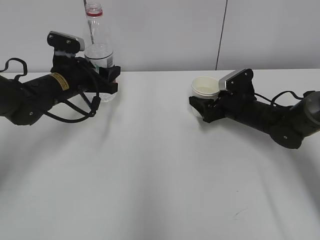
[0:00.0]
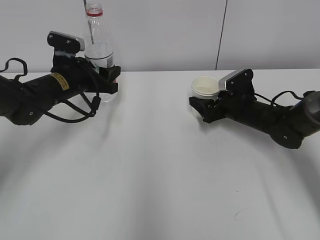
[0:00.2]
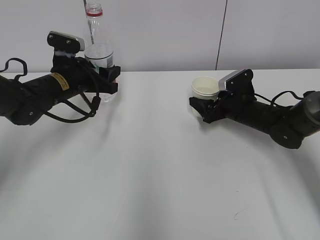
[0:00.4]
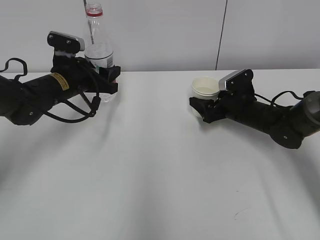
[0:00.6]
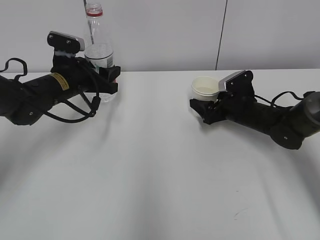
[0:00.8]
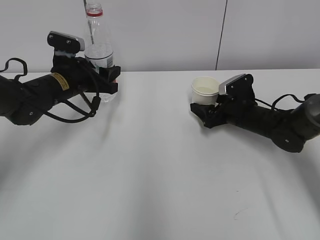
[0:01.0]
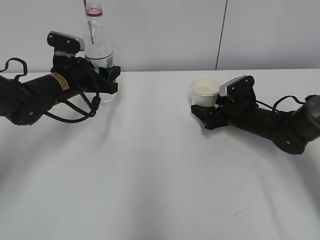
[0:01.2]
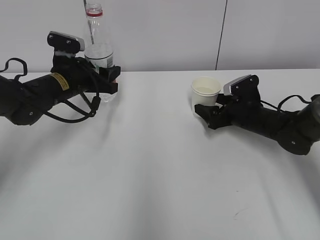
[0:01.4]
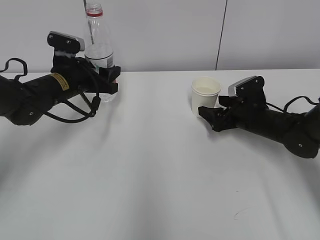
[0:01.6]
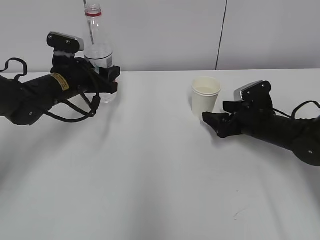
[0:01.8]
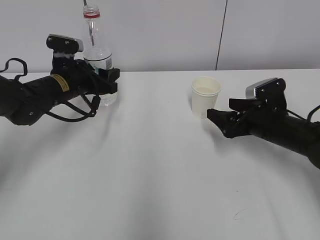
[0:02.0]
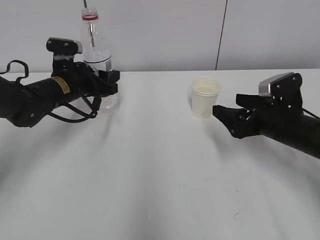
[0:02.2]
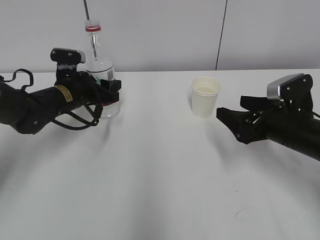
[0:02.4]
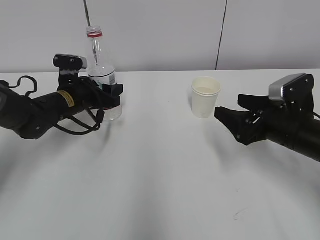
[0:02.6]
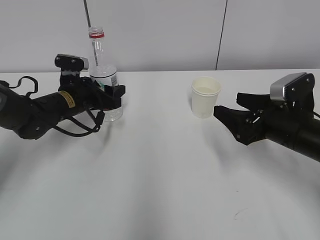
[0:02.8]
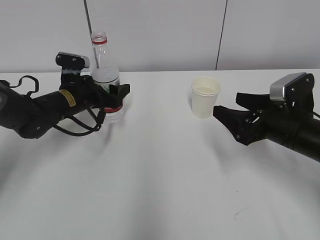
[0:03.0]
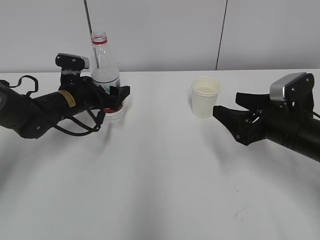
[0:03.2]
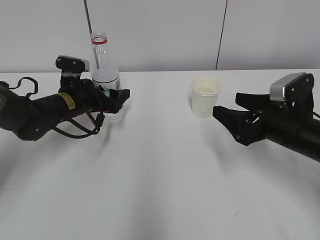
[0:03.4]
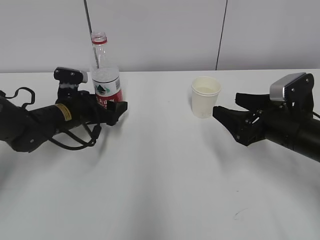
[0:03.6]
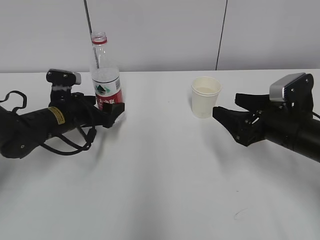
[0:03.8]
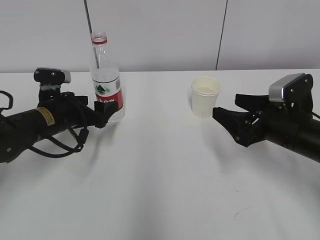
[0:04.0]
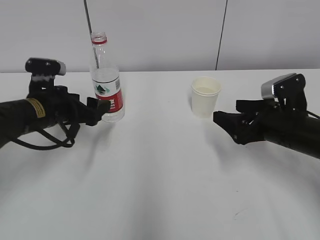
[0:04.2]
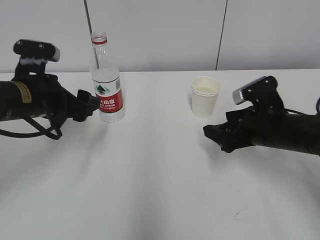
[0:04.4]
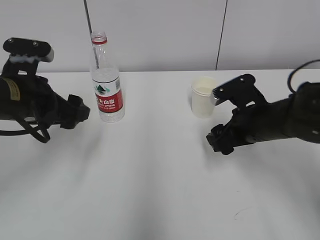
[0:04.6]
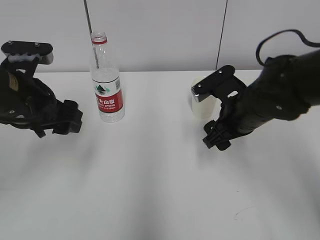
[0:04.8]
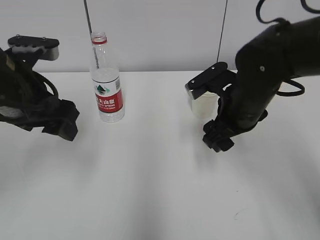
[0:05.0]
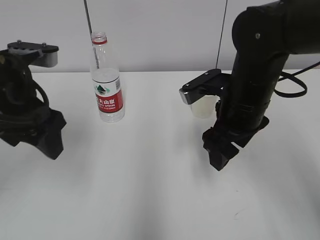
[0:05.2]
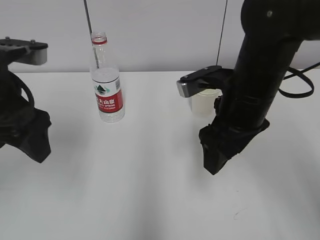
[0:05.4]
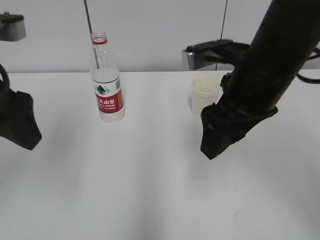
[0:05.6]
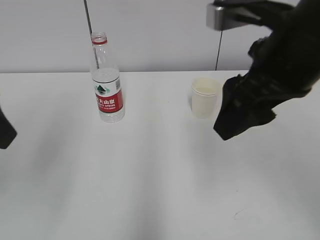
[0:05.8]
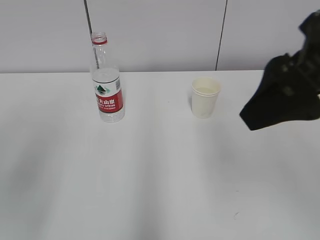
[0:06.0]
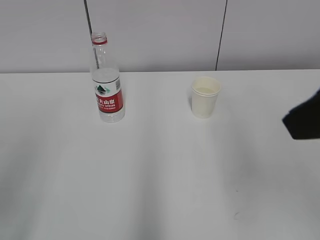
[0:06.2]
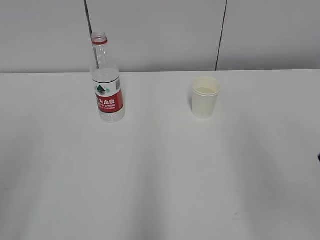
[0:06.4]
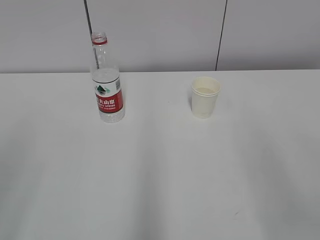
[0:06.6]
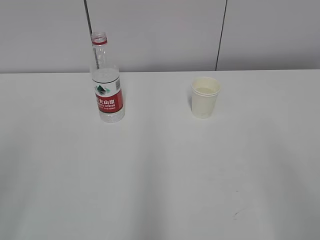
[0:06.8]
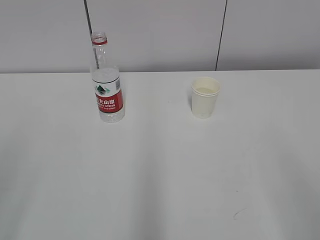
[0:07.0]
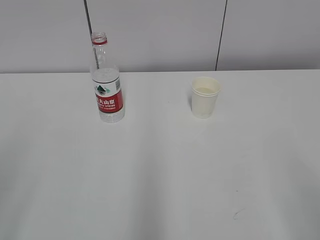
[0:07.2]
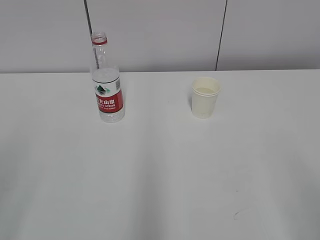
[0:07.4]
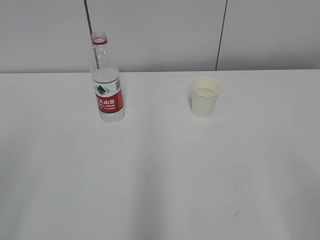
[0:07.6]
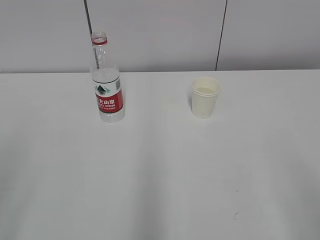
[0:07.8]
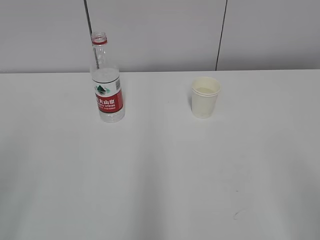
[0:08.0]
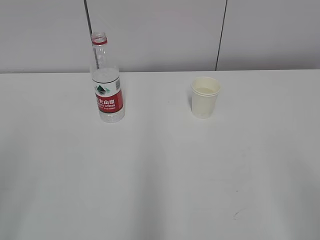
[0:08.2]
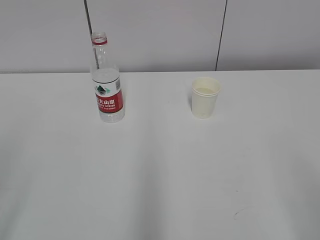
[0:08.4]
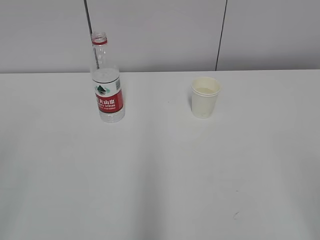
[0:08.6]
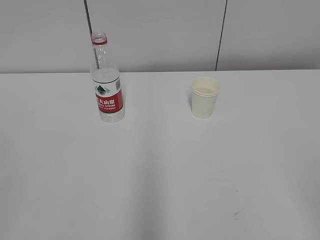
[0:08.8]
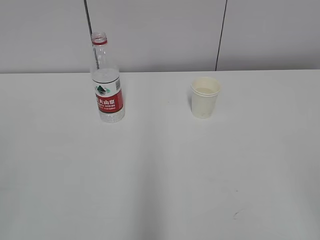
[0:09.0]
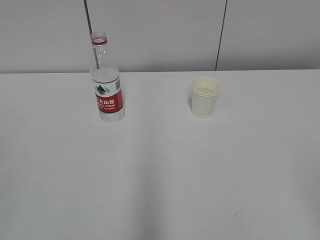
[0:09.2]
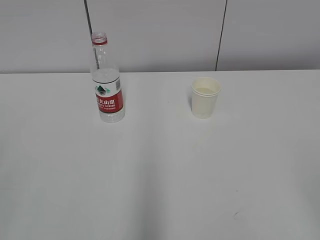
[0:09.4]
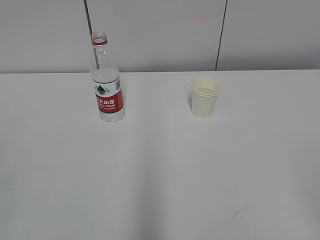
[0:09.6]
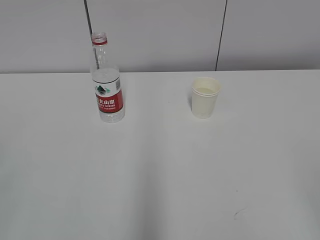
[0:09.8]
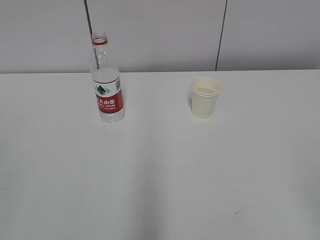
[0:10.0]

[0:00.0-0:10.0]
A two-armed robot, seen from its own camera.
0:00.0 to 0:01.4: The grippers move only a little.
0:01.4 to 0:02.8: The right gripper shifts some 15 cm backward and upward.
0:02.8 to 0:04.2: The left gripper shifts roughly 10 cm backward, and opens up.
0:04.2 to 0:05.8: The left gripper is displaced upward and backward by roughly 25 cm. Meanwhile the right gripper heads upward and to the left, covering about 20 cm.
0:05.8 to 0:07.2: The left gripper shifts some 15 cm backward and to the left, while the right gripper travels backward and to the right by about 25 cm.

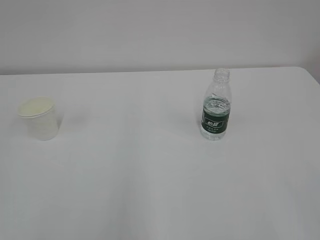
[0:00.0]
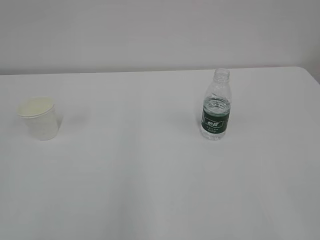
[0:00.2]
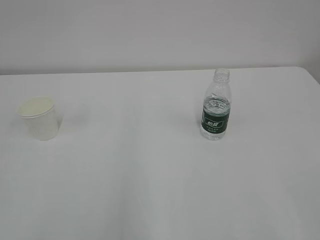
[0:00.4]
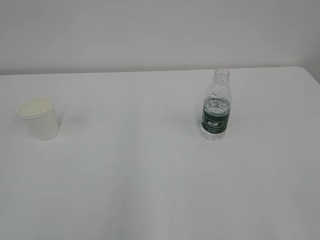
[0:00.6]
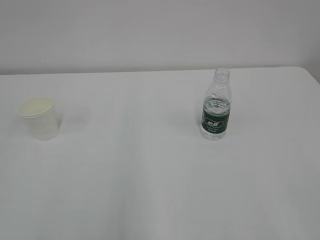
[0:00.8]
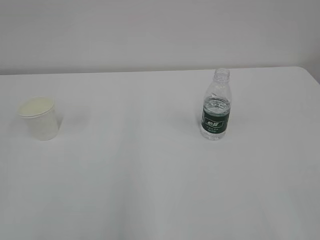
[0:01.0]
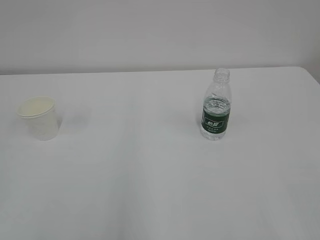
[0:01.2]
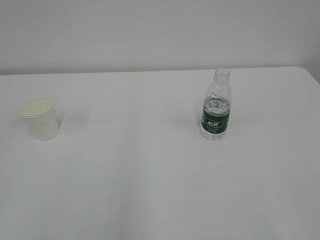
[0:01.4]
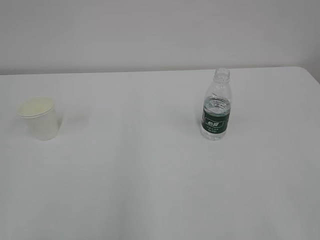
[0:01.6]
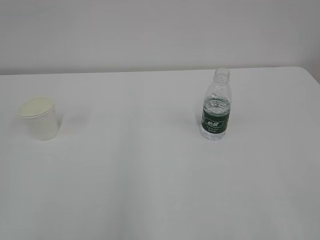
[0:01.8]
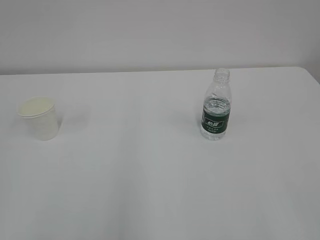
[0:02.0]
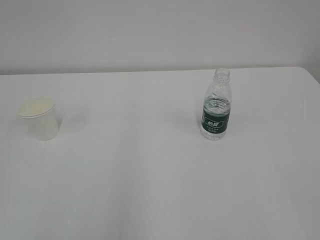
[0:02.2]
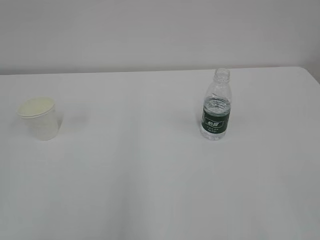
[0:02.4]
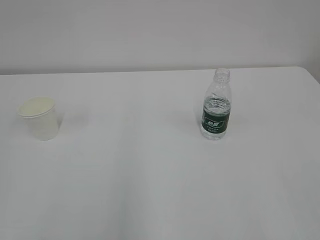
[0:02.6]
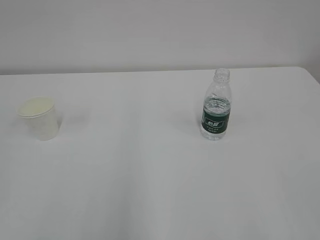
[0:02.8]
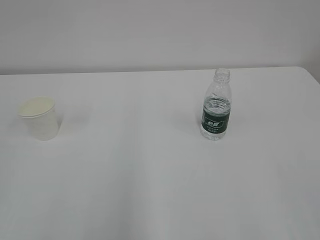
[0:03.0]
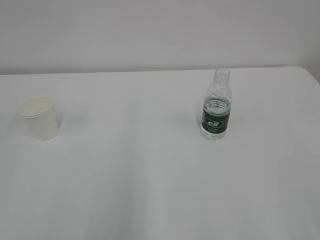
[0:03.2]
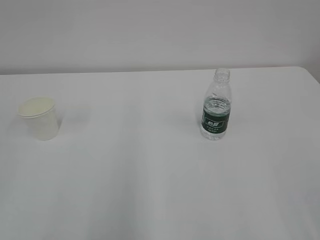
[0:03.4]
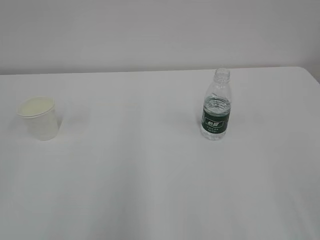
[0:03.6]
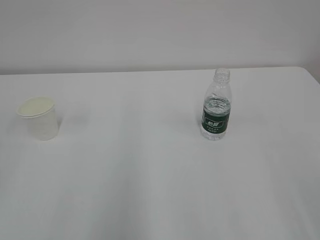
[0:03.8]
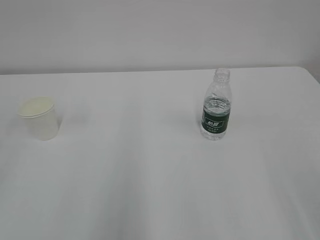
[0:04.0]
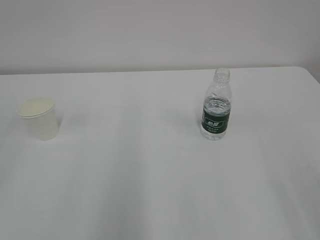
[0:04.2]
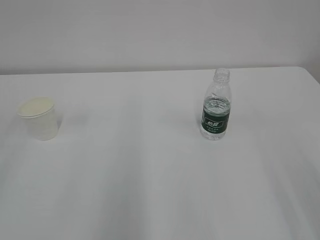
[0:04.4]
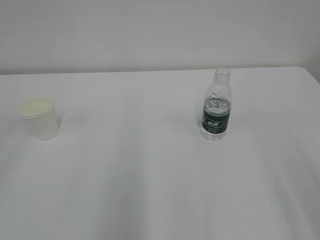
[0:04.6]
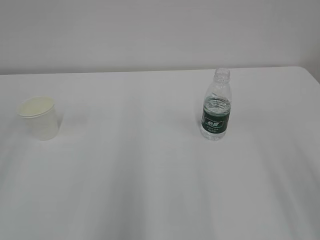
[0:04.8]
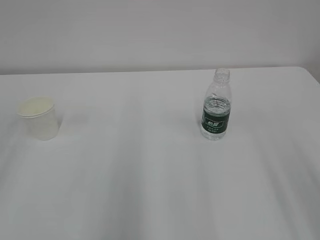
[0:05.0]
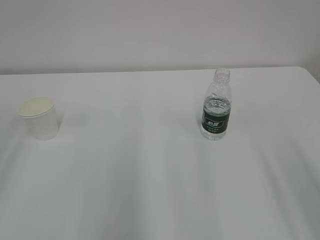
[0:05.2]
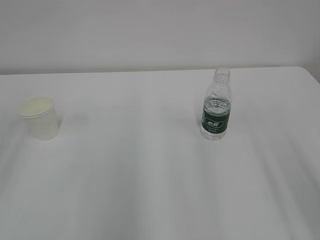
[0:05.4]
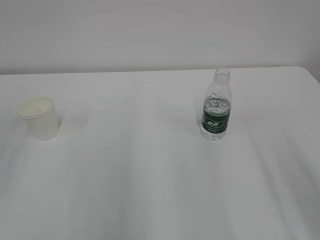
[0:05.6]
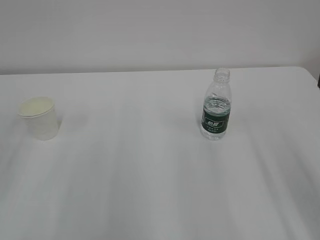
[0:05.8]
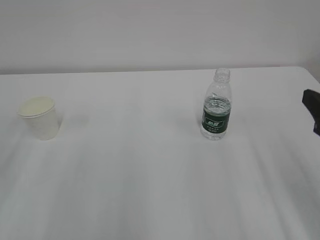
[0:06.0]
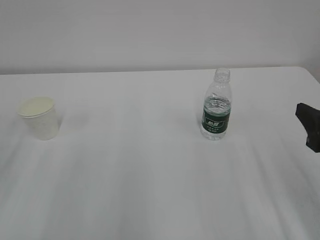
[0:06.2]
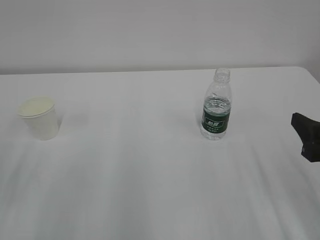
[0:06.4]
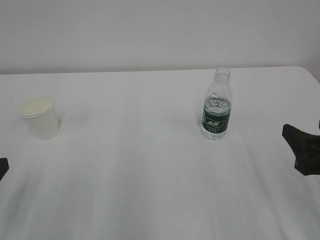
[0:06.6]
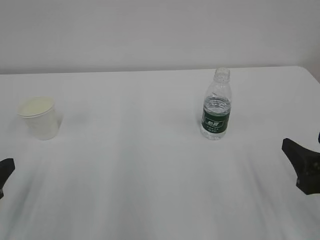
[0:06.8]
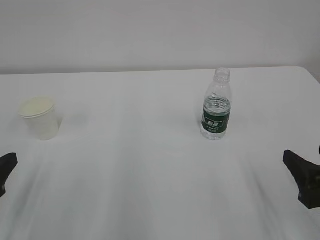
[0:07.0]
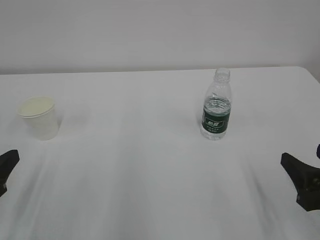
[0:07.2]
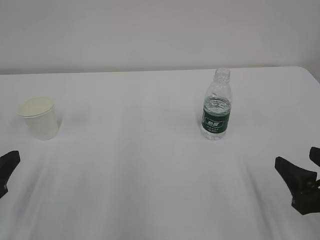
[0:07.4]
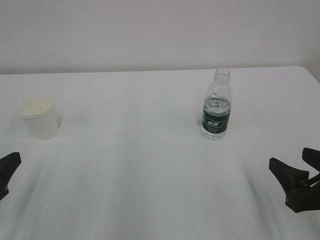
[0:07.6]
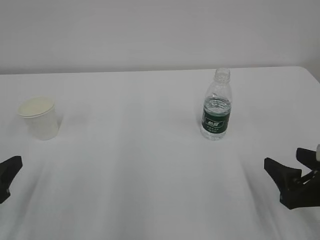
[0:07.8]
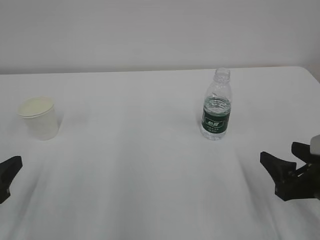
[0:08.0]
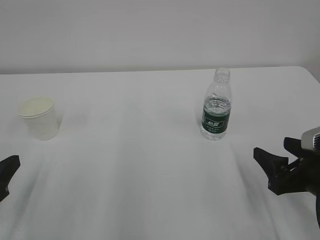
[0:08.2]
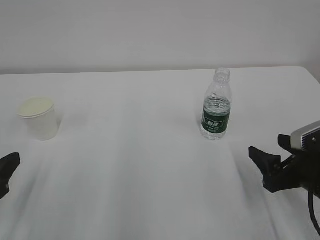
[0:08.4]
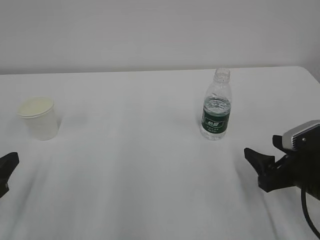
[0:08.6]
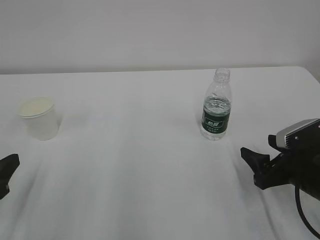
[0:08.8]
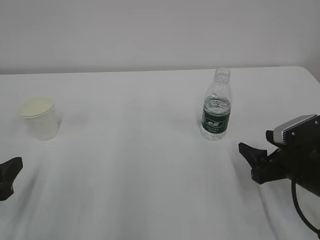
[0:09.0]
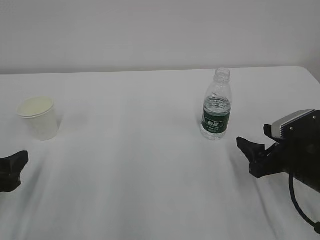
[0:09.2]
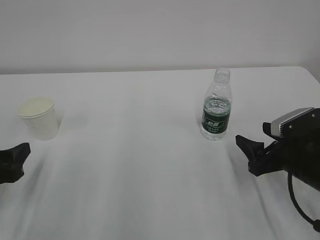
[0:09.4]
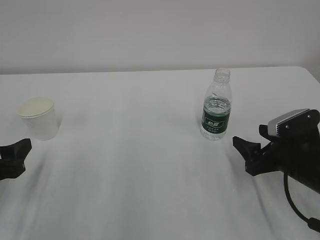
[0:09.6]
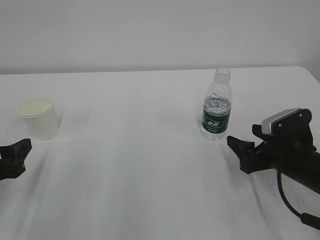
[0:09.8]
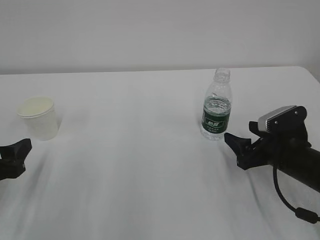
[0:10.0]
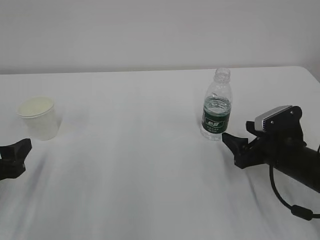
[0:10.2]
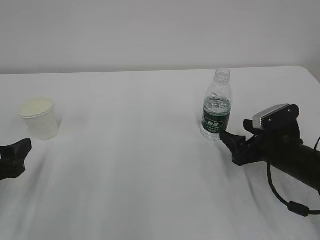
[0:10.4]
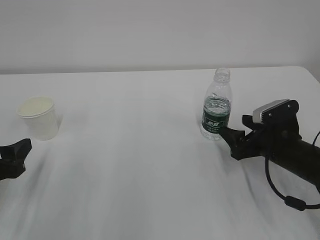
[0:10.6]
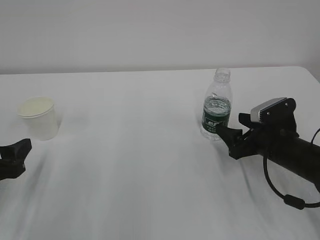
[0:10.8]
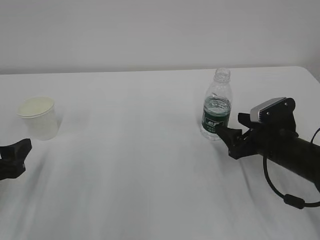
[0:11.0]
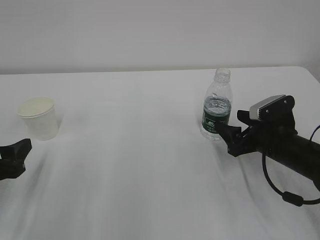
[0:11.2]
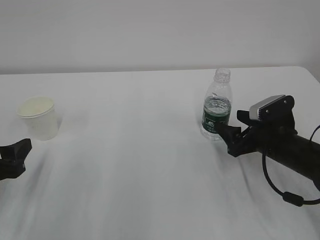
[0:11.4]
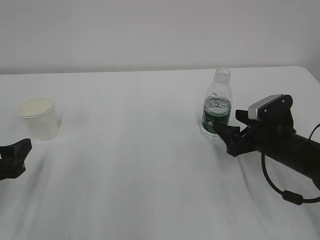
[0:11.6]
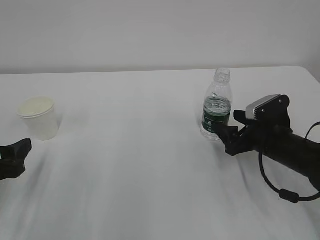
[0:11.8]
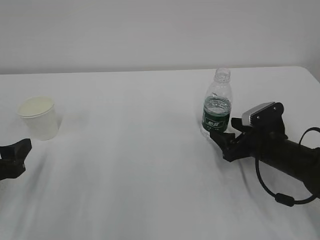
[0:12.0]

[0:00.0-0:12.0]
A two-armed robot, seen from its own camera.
0:04.4 to 0:06.0: The right gripper heads forward and downward, covering about 15 cm.
0:06.0 to 0:07.6: Both grippers travel together downward, about 10 cm.
0:07.6 to 0:09.0: The right gripper travels forward by approximately 10 cm.
0:09.0 to 0:10.4: The right gripper is displaced forward by some 5 cm.
0:10.4 to 0:12.0: The grippers make only small movements.
